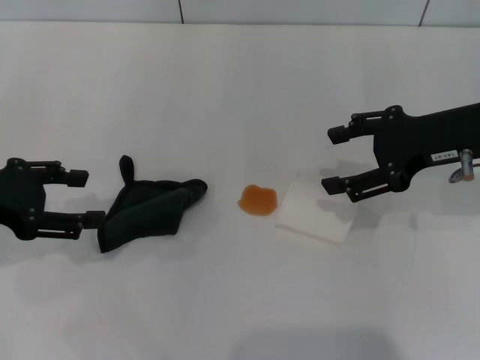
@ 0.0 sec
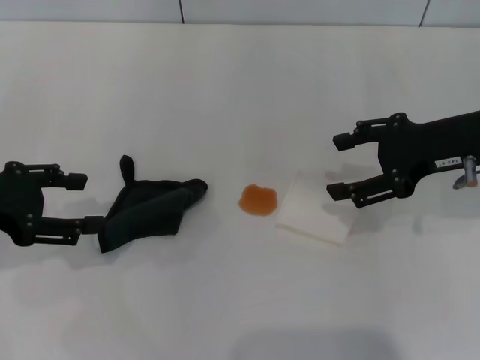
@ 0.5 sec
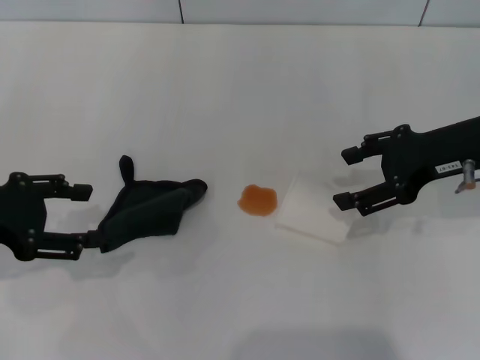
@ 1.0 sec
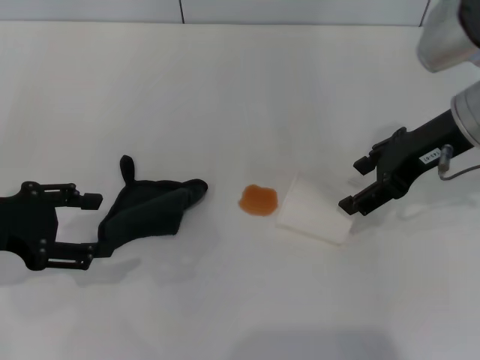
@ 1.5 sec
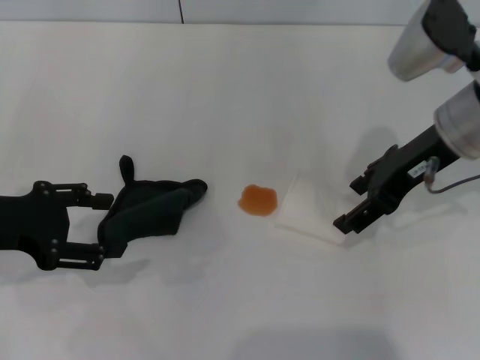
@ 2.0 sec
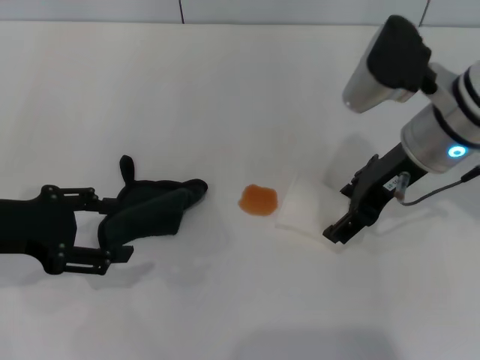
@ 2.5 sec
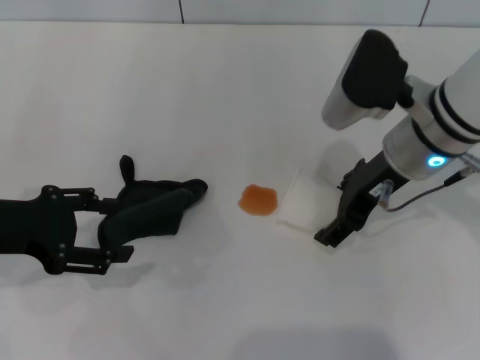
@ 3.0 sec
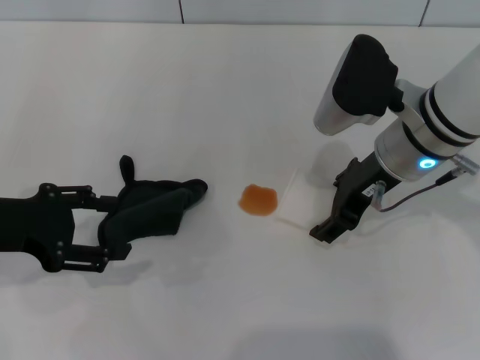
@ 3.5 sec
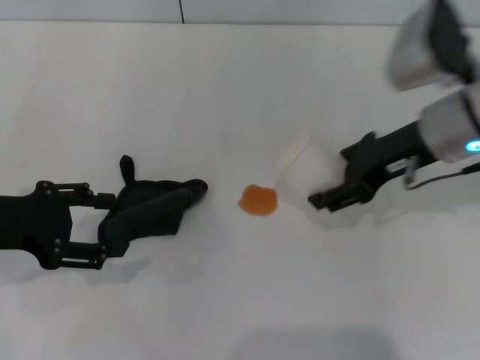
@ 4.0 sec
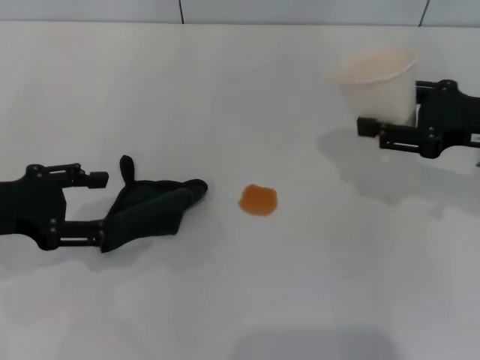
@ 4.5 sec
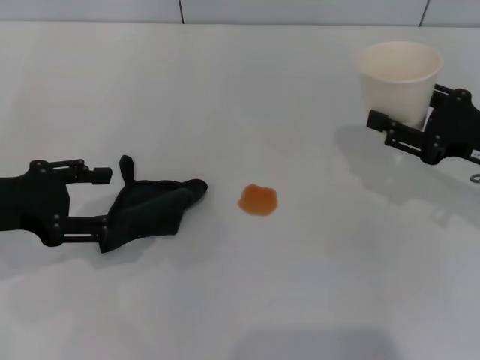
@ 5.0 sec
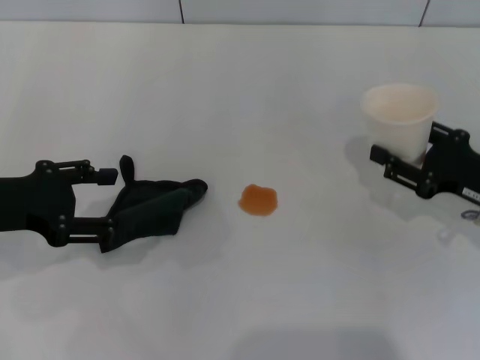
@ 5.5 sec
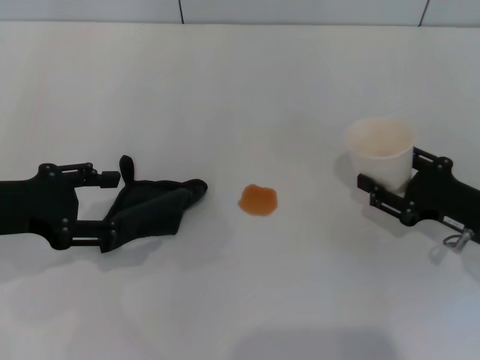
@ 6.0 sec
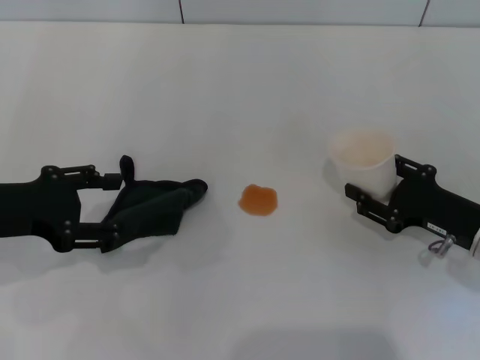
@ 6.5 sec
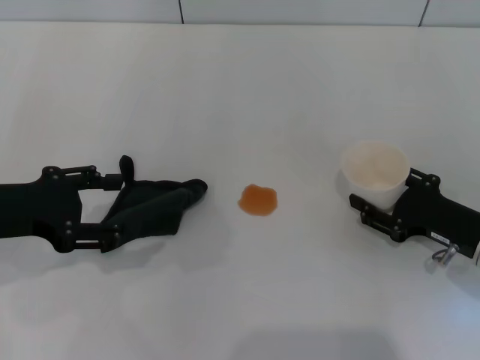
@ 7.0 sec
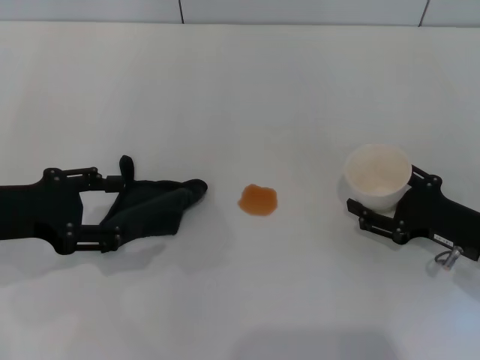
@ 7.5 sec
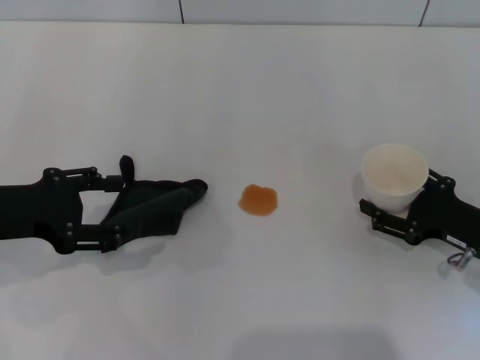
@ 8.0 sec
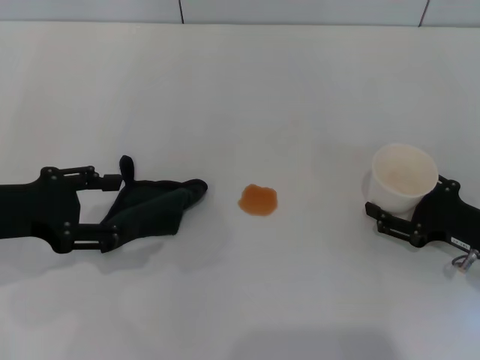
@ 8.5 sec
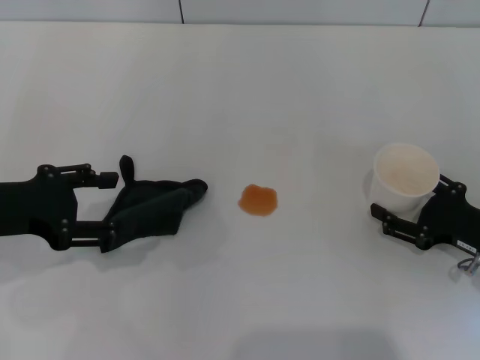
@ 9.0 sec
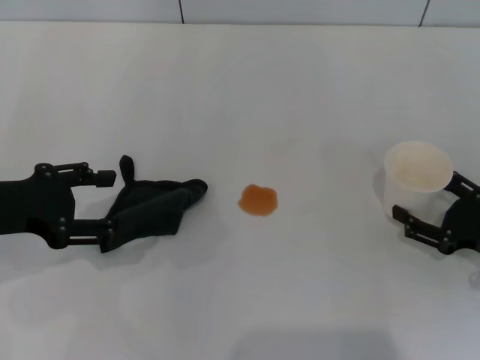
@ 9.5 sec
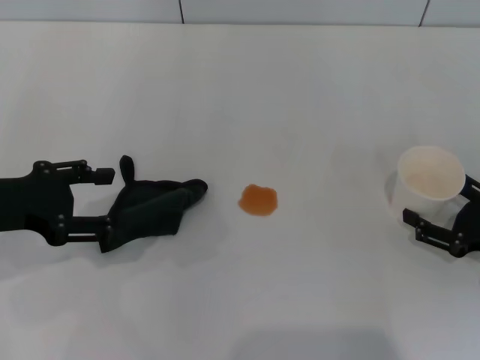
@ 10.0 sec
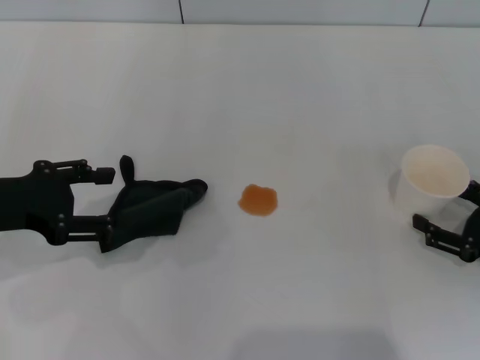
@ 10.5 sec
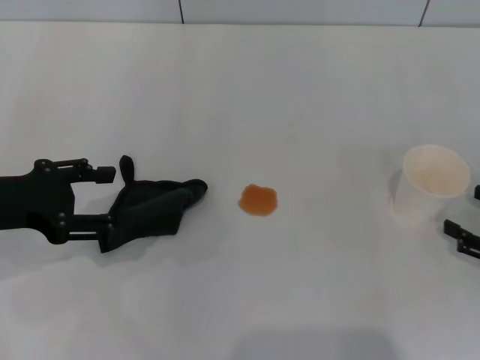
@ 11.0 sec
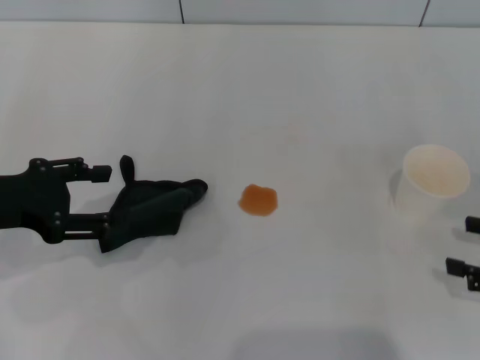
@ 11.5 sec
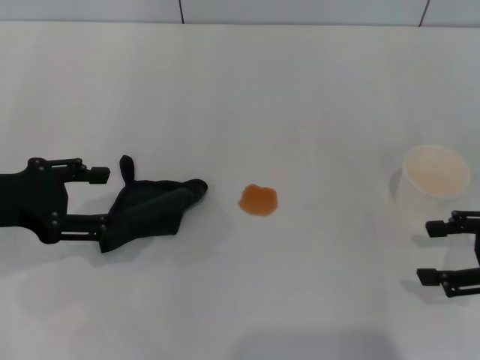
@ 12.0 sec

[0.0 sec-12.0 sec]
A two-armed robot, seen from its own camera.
Step, 0.0 sec to 3.5 sec: Grasp the paper cup with the right gripper.
Step, 4.0 sec to 10.5 sec: Stand the paper cup upright with the right gripper.
0.0 sec to 2.0 sec: The right gripper heads to the left, covering roughly 5 cm.
2.0 sec to 4.0 sec: The right gripper closes its fingers.
4.0 sec to 6.0 sec: The right gripper is displaced downward, to the right and backward by about 20 cm.
6.0 sec to 8.0 sec: The right gripper opens up.
8.0 sec to 10.0 sec: The grippers stay close to where they were, moving slightly.
10.0 sec to 12.0 sec: The right gripper travels upward by some 10 cm.

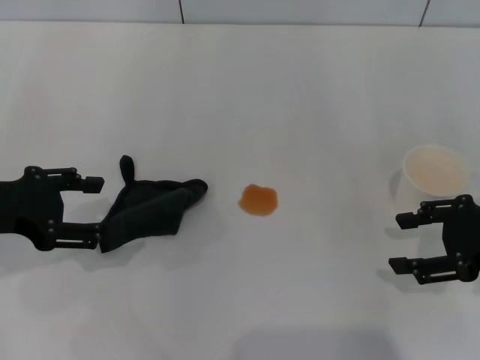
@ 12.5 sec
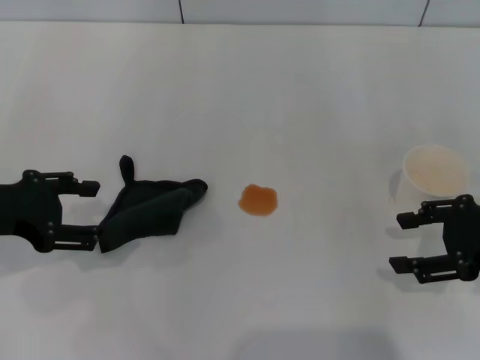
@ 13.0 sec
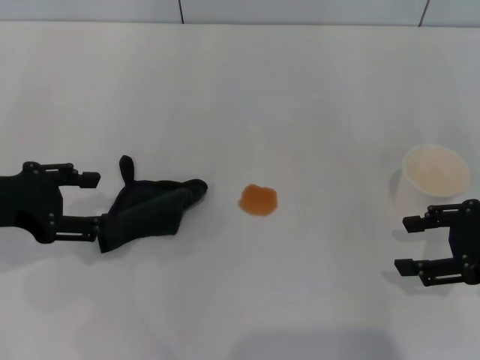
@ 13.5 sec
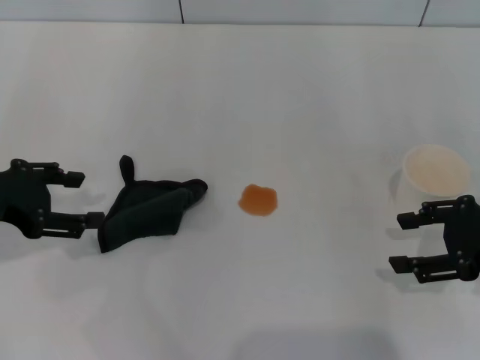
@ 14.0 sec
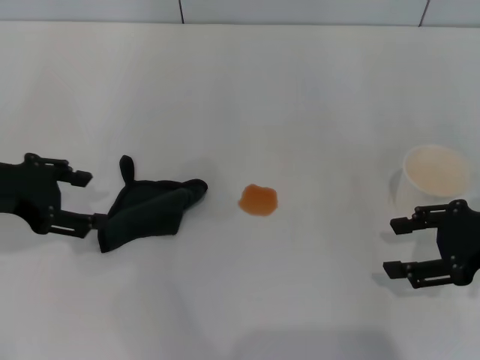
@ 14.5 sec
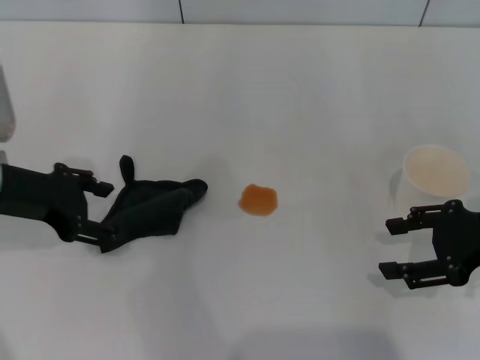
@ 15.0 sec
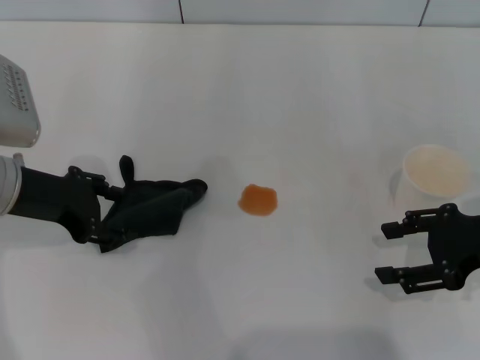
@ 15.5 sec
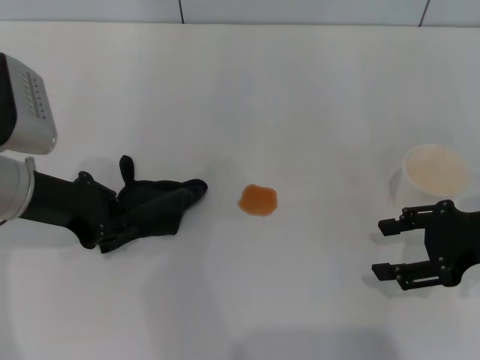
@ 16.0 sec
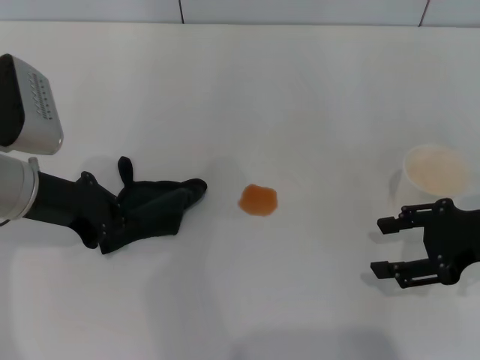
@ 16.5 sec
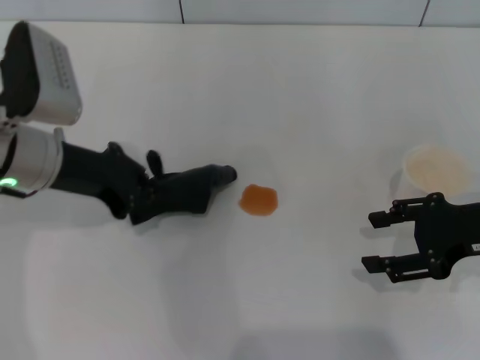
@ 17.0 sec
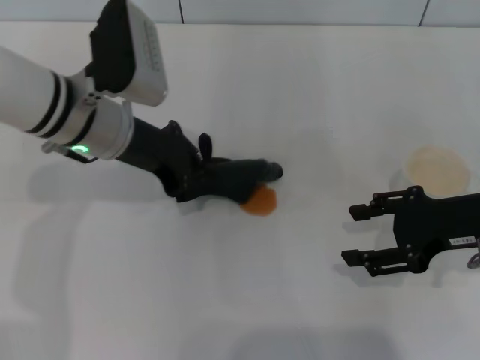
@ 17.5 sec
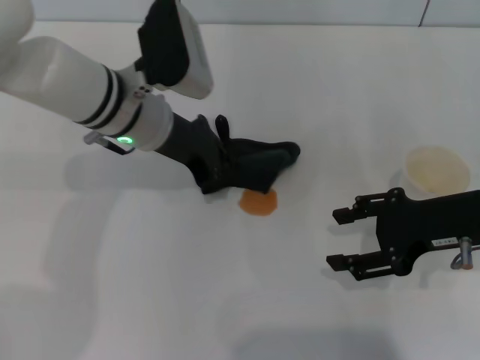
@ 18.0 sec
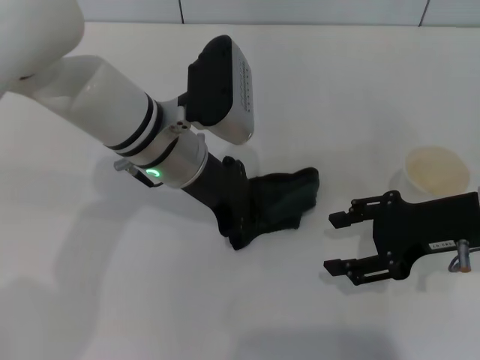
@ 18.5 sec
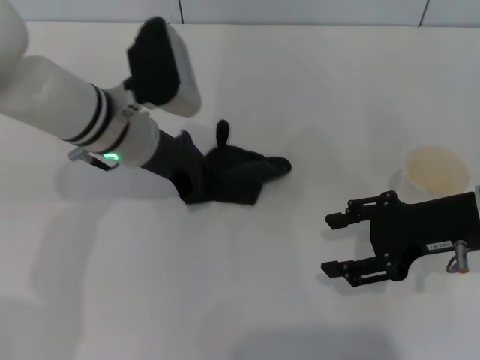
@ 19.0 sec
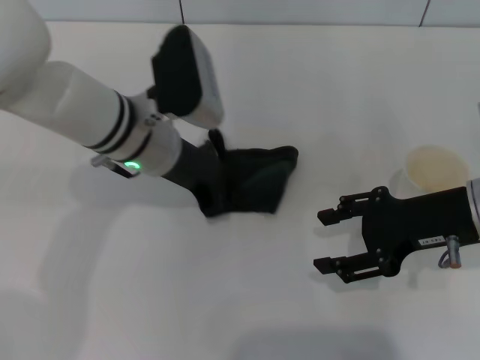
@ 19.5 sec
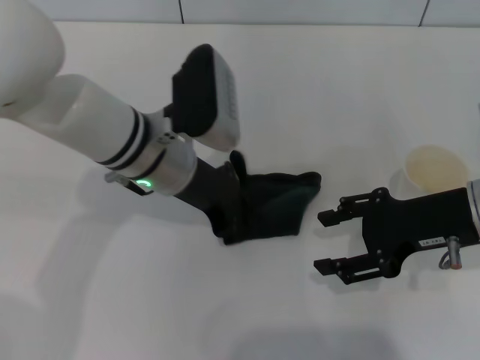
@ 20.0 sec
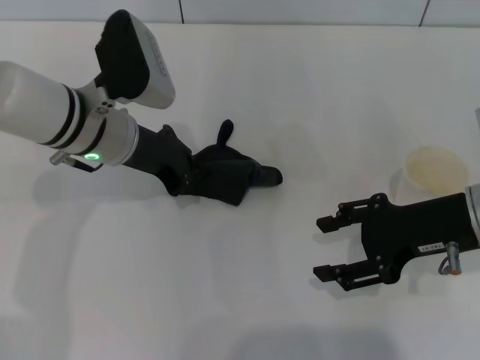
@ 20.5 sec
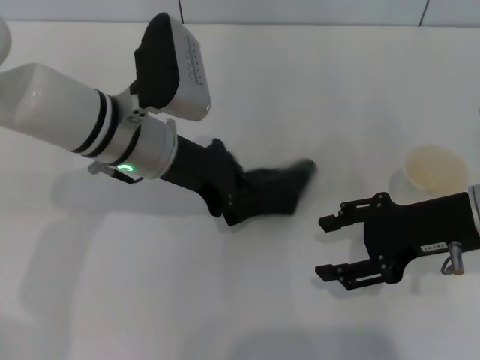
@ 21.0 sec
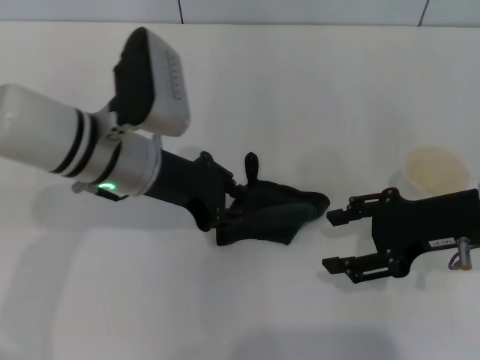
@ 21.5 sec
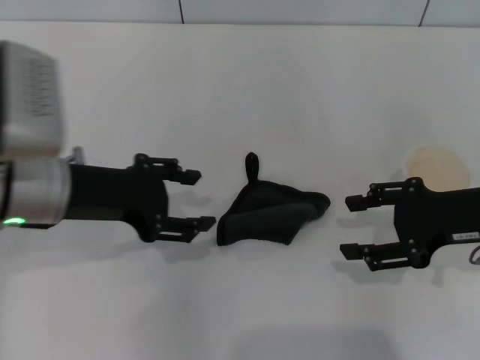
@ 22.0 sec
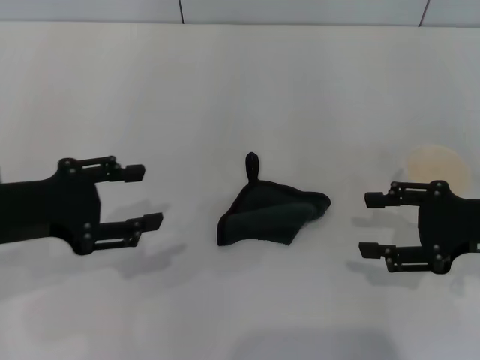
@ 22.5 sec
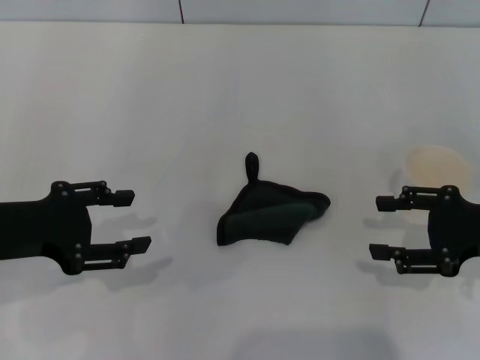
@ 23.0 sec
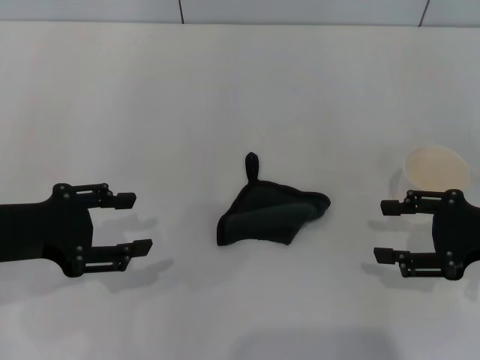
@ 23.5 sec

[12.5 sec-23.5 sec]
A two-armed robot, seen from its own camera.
Step, 12.5 sec to 16.5 sec: Grasp the rag with the left gripper.
Step, 17.0 sec to 20.0 sec: Wipe the stains off the table with the left gripper.
Step, 20.5 sec to 22.0 sec: Place the rag on the table with the left gripper.
12.5 sec to 14.5 sec: The grippers make only small movements.
14.5 sec to 16.0 sec: The left gripper moves about 5 cm.
16.0 sec to 18.0 sec: The left gripper heads to the right and forward, covering approximately 15 cm, and closes.
21.5 sec to 23.5 sec: The right gripper shifts about 5 cm to the right; the left gripper travels to the left and backward by approximately 15 cm, and opens its fingers.

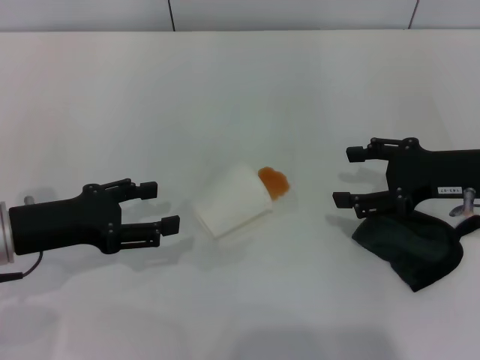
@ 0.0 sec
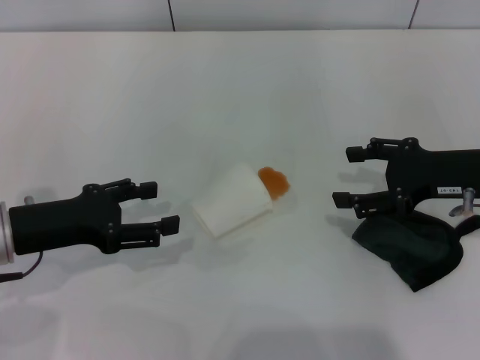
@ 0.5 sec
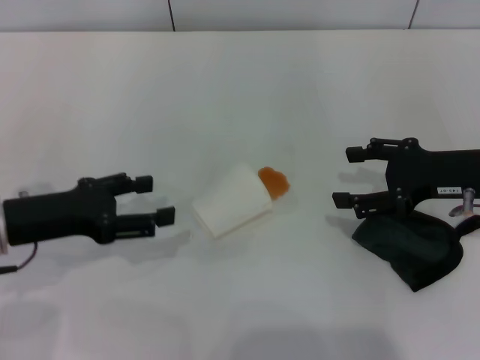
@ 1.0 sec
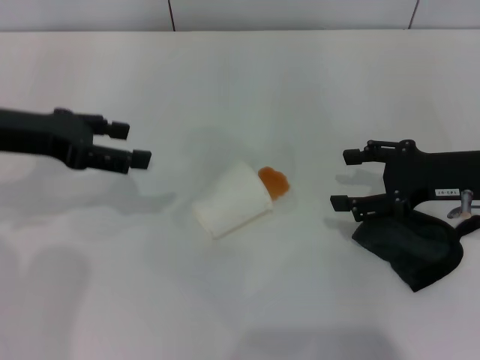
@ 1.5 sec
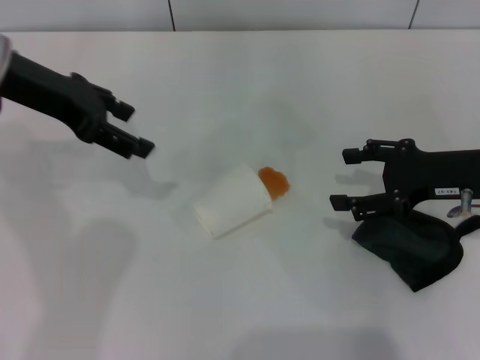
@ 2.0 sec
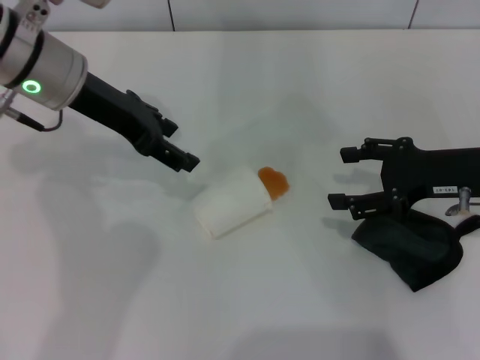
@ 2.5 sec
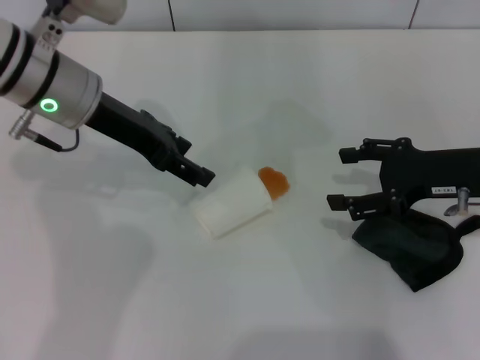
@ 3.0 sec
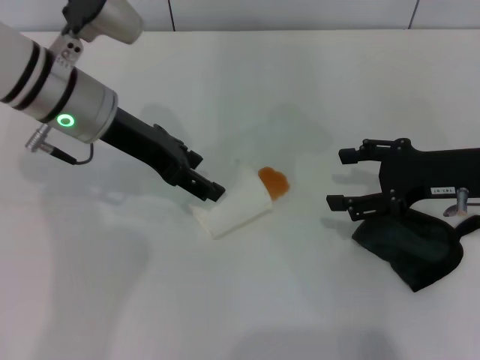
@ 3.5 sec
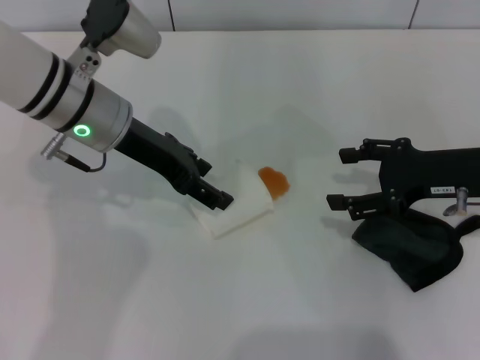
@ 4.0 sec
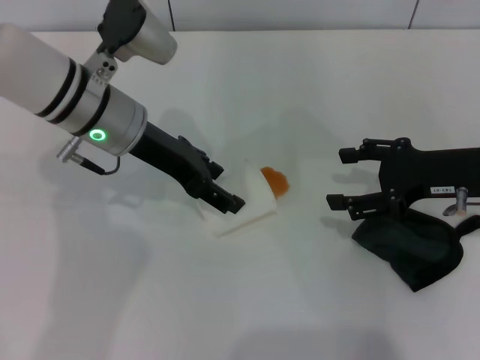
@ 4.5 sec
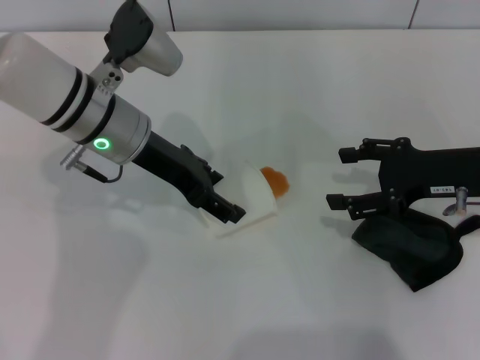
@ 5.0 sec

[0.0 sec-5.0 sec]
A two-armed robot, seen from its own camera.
0.0 sec to 2.5 sec: The left gripper goes approximately 20 cm forward, upward and to the right.
2.5 sec to 5.0 sec: The left gripper moves downward, roughly 5 cm.
